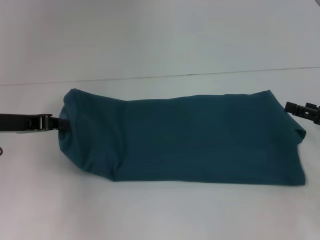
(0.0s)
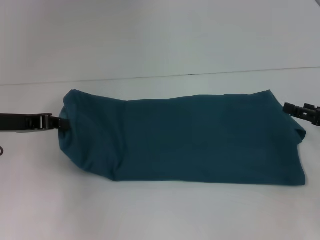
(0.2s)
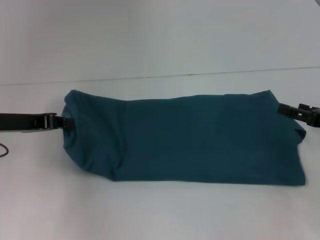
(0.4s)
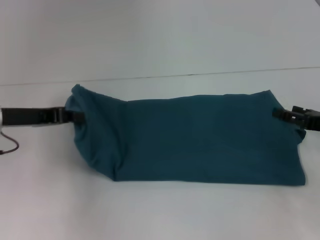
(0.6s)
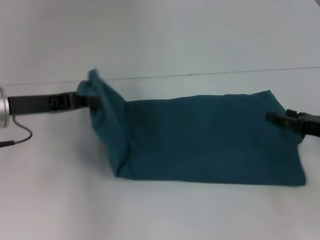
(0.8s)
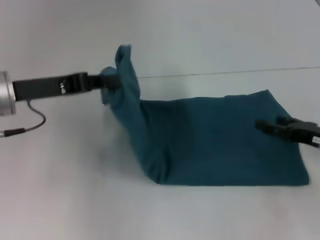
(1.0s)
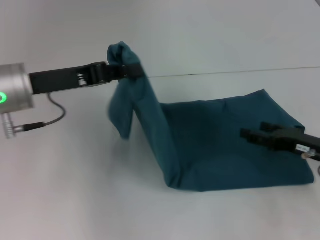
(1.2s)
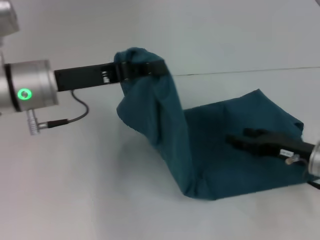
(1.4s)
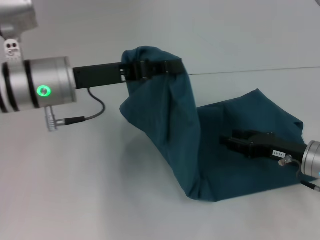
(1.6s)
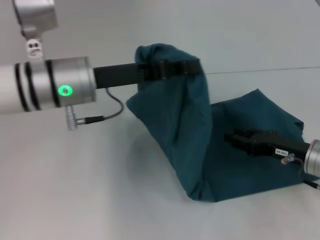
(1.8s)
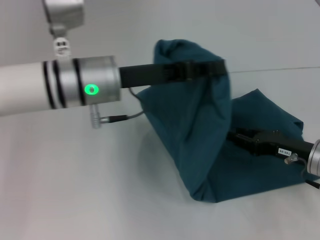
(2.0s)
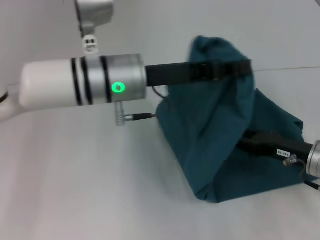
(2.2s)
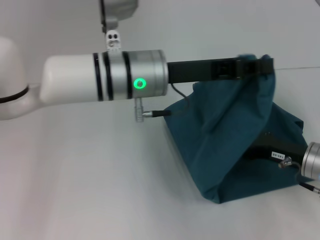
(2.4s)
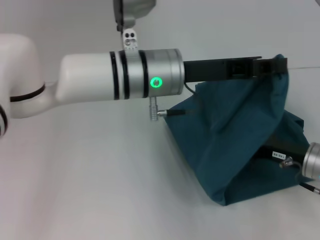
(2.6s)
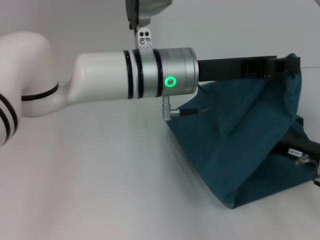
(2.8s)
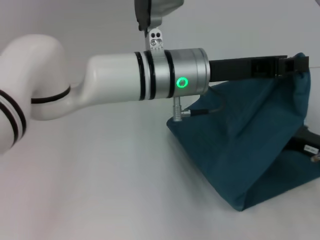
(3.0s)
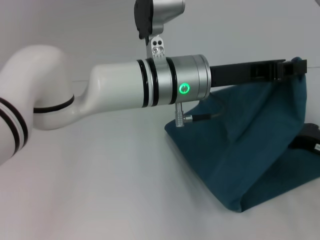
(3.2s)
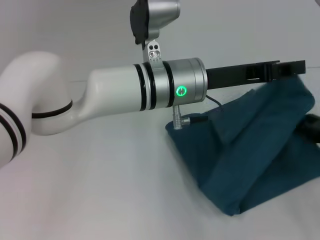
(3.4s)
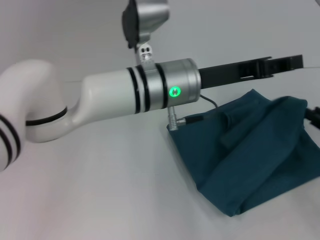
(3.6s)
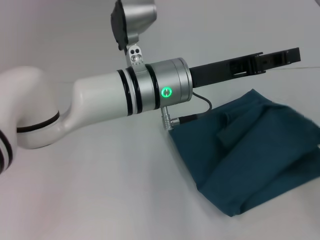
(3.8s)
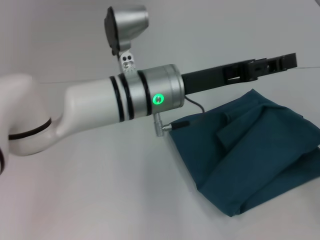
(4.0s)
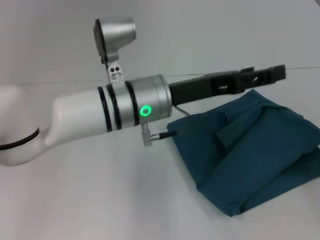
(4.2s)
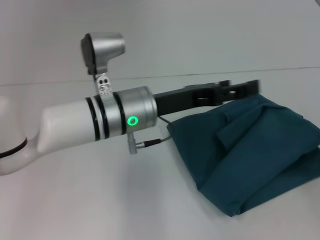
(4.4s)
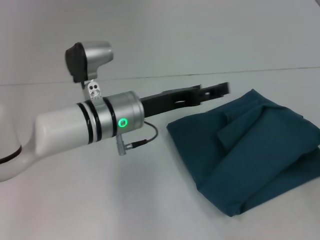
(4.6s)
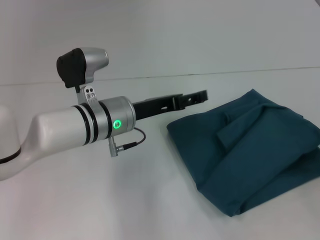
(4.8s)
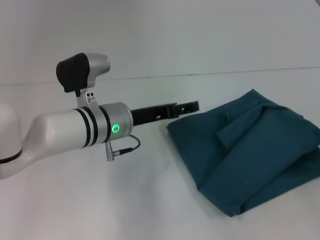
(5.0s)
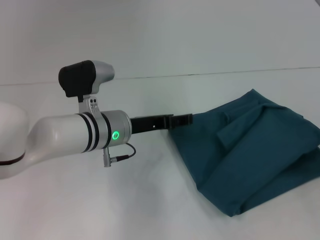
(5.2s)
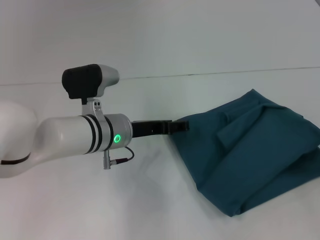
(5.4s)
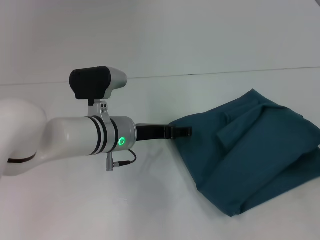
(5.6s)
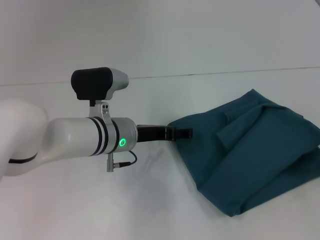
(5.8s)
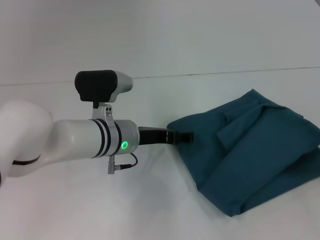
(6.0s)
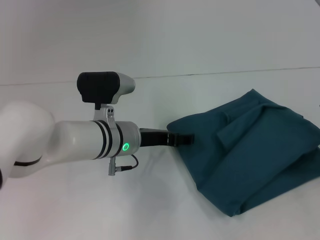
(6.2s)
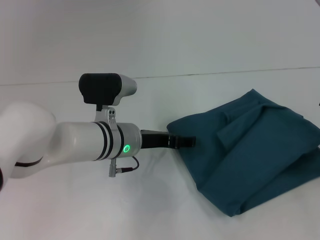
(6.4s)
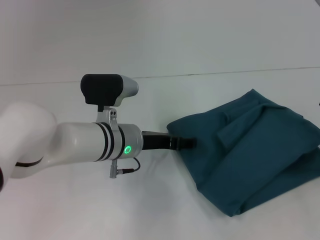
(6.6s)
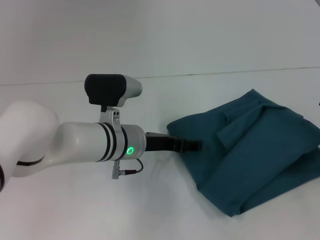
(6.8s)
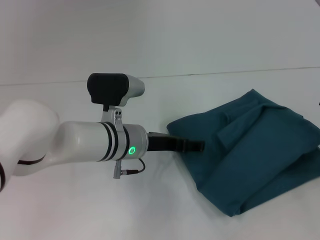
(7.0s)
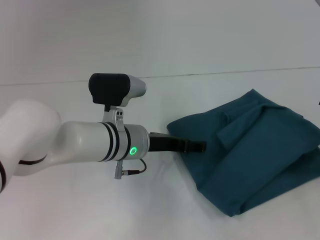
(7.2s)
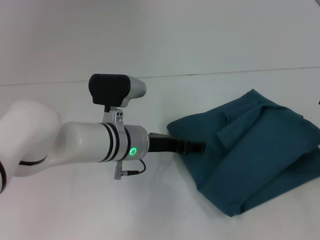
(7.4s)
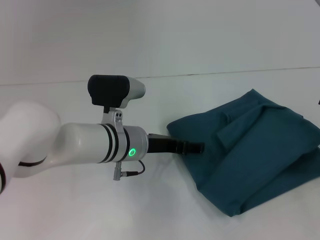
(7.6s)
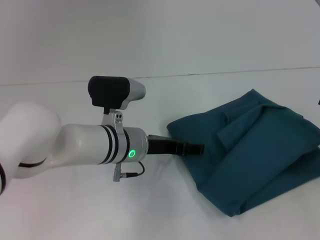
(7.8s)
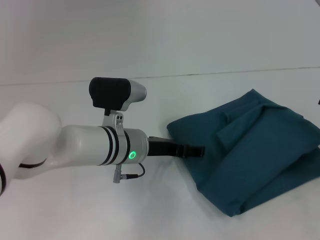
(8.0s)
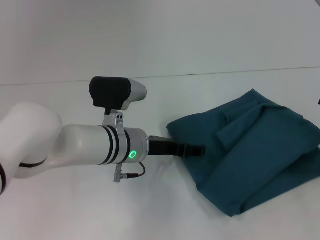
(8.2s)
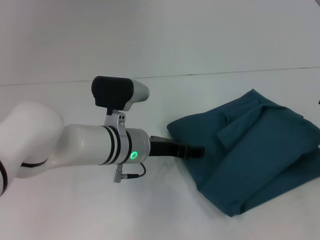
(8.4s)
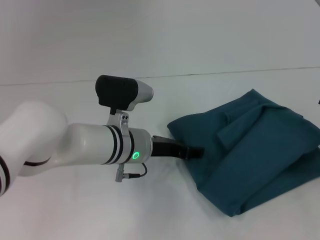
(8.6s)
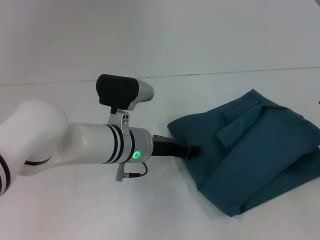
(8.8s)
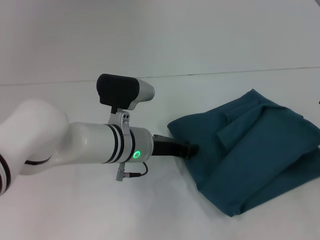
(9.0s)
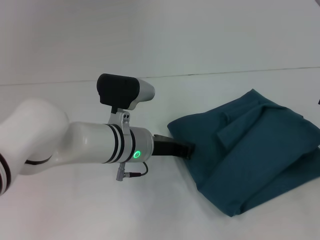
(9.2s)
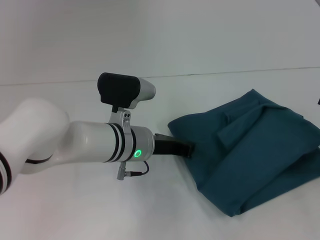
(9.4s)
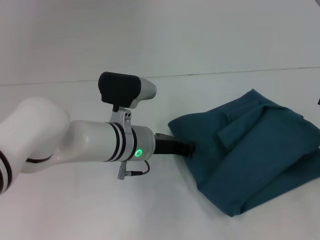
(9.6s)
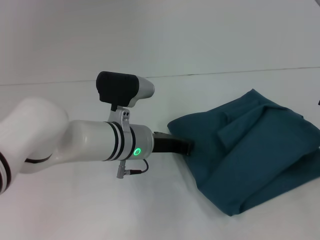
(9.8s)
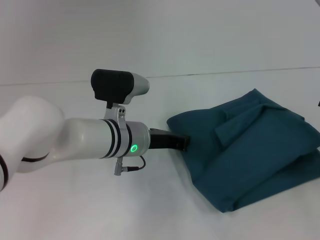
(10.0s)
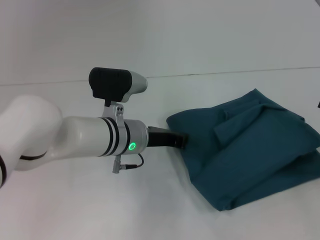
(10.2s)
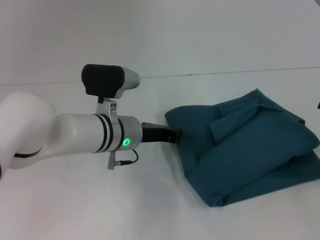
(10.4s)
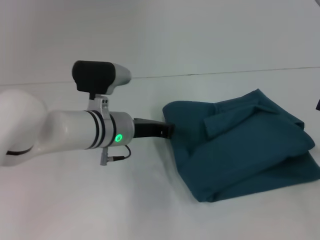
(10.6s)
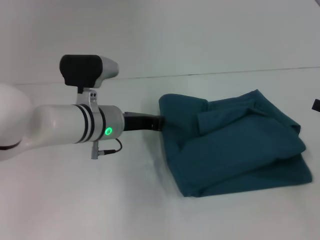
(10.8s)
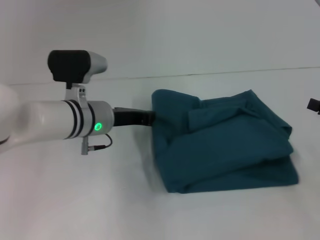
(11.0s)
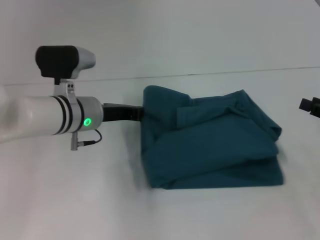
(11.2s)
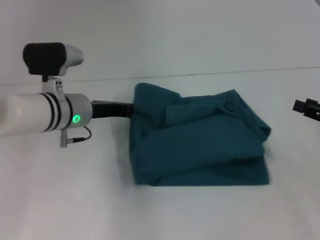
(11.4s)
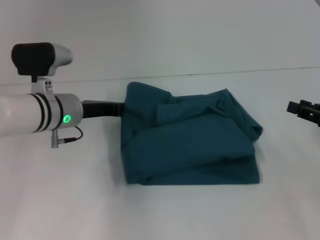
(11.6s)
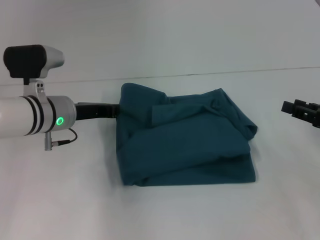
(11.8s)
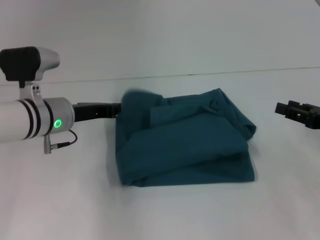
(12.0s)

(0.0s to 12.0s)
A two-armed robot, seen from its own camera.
Step, 0.0s - 4.6s: Fold the clothes to the left.
0.0s - 1.6s: The right gripper is displaced to the left by roughly 10 cm; the left gripper is displaced to the right by approximately 10 cm.
1.6s - 3.0s: The left gripper heads to the right, covering about 15 cm. The right gripper closes its fingers.
3.0s - 4.4s: The left gripper moves to the left and downward, some 10 cm, and opens up. Meanwhile the right gripper moves to the right, roughly 10 cm.
4.4s - 6.0s: The left gripper is displaced downward by some 5 cm.
6.0s - 7.6s: There are only small adjustments of the grippers.
7.6s - 9.0s: The left gripper closes.
9.0s - 10.4s: The grippers make only small movements.
10.4s - 12.0s: The right gripper ends up approximately 5 cm from where it was. The left gripper shifts some 10 cm to the left.

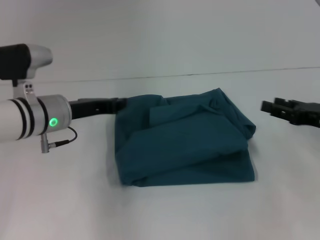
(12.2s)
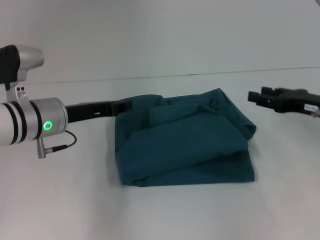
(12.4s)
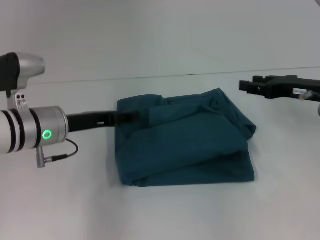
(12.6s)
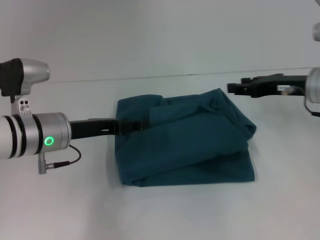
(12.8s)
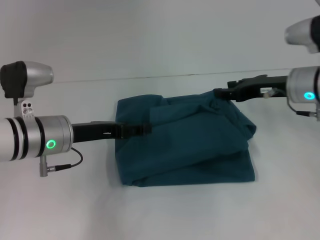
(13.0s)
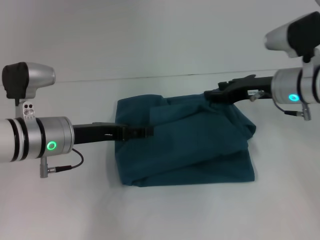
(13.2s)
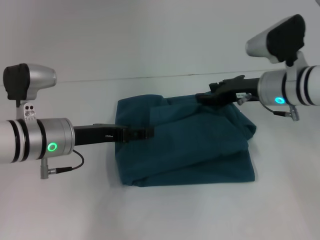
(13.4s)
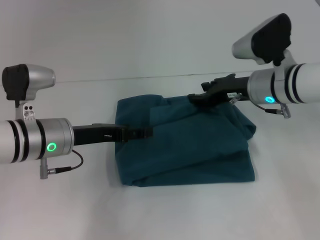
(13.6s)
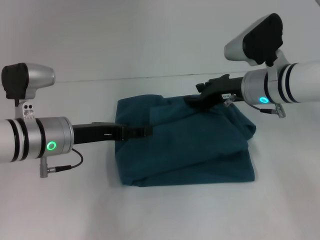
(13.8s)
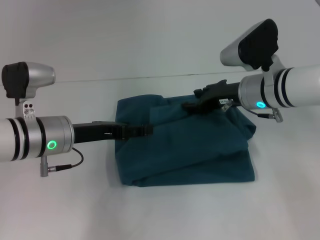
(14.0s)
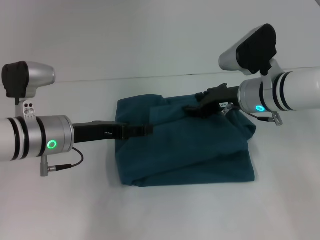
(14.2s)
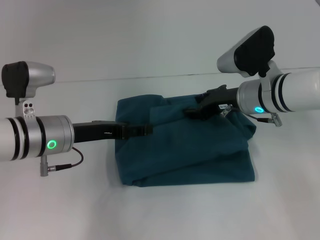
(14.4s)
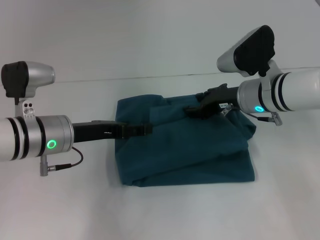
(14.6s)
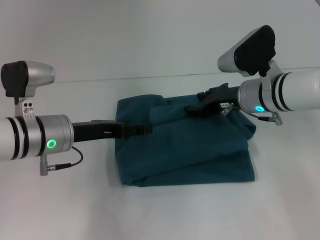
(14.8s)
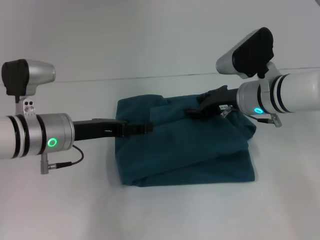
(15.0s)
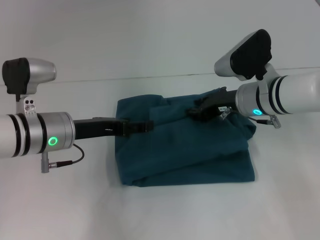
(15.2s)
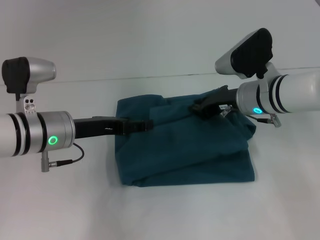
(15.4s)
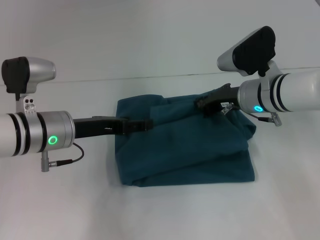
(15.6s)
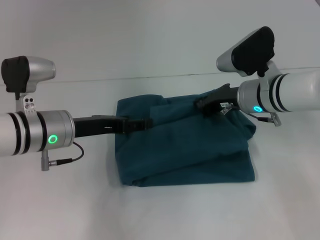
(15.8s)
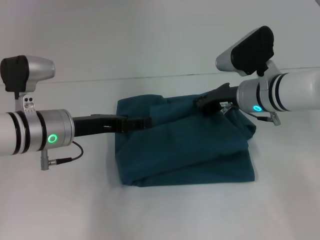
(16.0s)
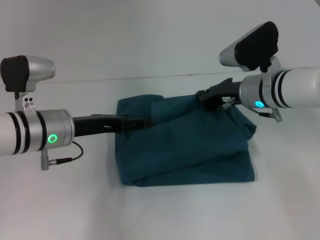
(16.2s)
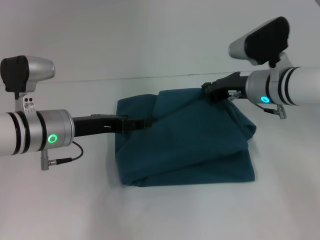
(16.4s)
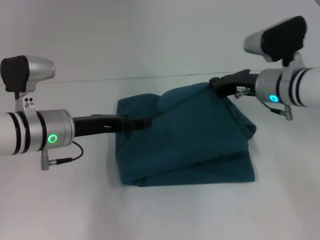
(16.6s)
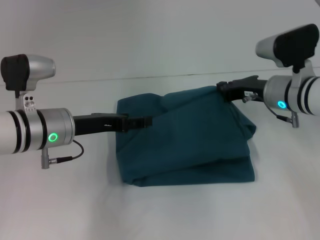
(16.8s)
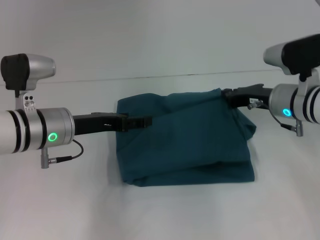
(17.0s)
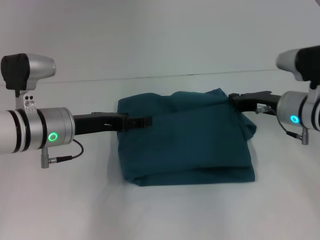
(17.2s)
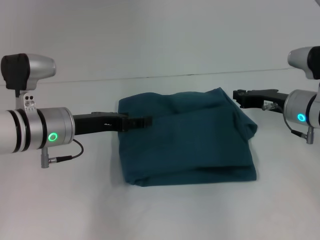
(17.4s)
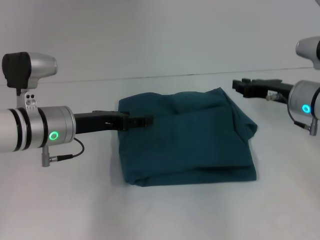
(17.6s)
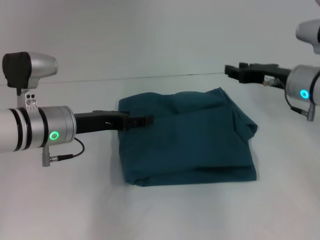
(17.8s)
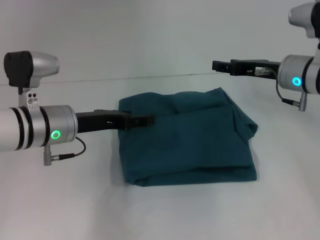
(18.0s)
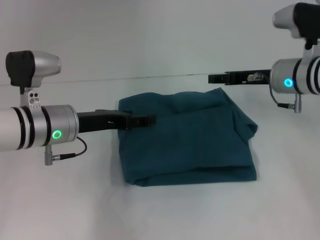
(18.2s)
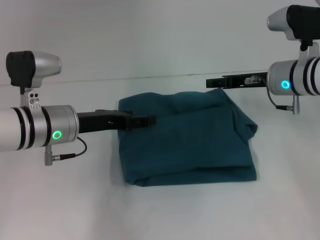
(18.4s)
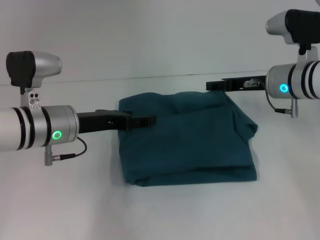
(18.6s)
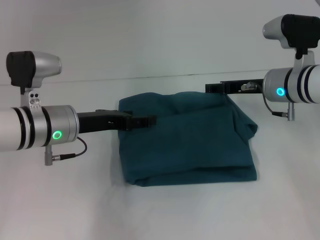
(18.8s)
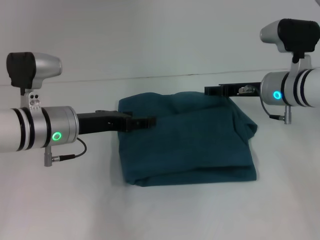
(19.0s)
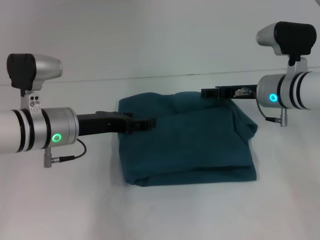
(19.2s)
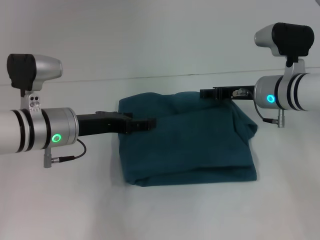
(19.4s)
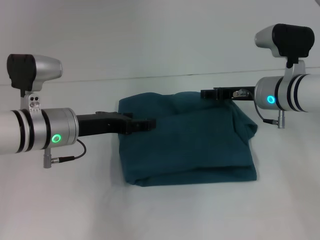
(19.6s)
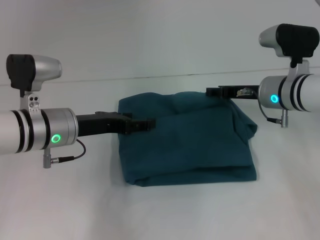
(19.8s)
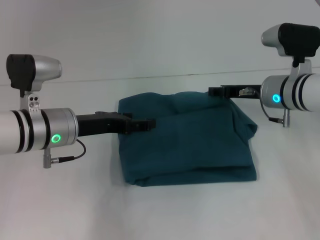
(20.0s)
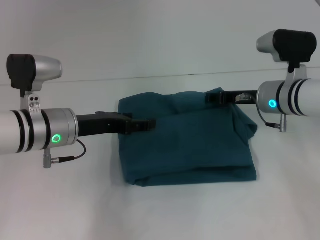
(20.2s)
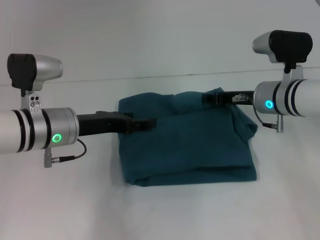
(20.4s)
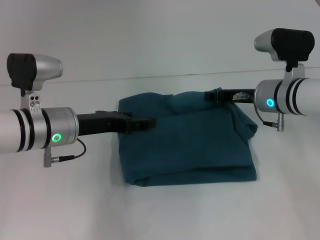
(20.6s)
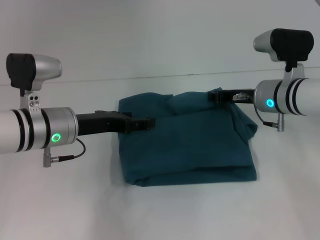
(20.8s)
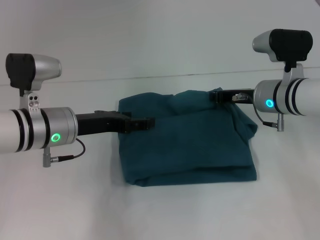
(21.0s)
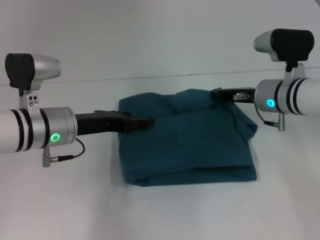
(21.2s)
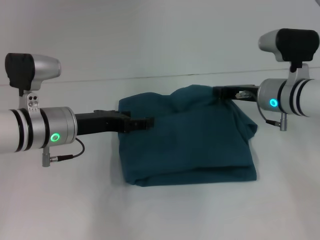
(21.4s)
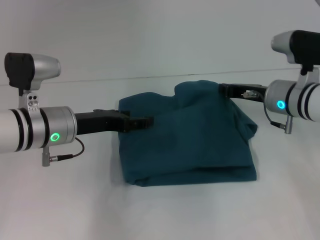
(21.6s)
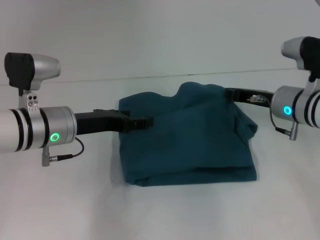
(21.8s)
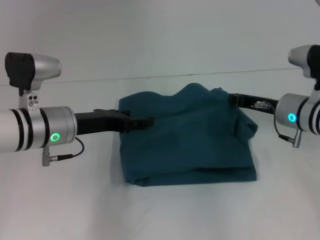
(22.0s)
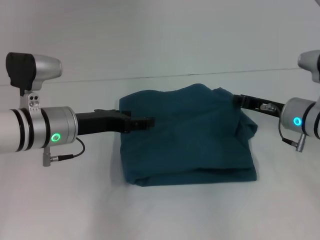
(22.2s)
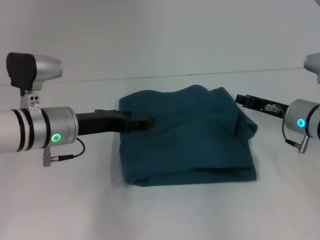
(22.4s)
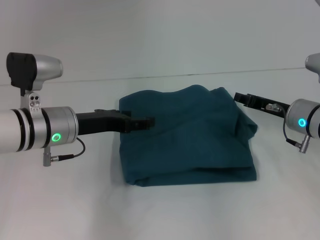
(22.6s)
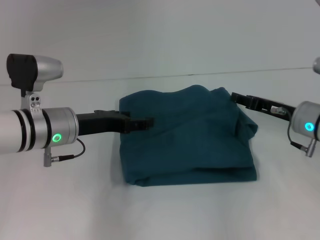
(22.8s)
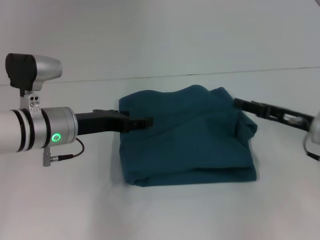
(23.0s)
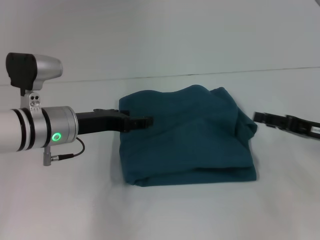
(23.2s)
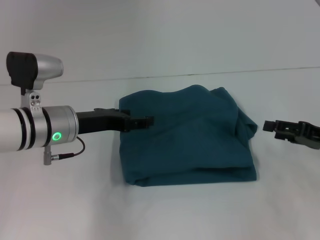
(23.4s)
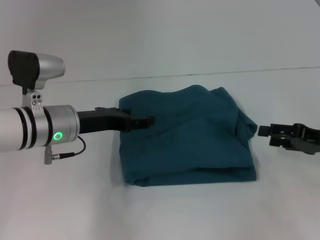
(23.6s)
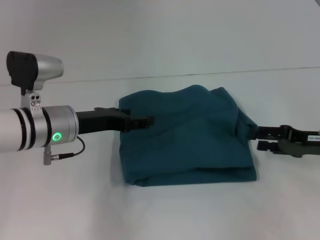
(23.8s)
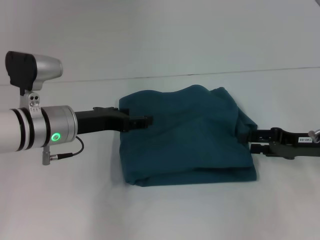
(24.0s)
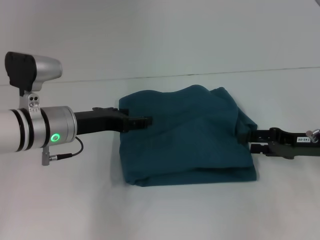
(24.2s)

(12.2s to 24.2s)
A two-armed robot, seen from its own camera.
12.2s - 13.8s: The right gripper moves to the left and forward, about 20 cm. Meanwhile the left gripper opens up.
13.8s - 15.2s: The grippers move only a little.
15.2s - 16.6s: The right gripper closes its fingers.
16.6s - 18.2s: The right gripper opens its fingers.
18.2s - 19.8s: The grippers move only a little.
19.8s - 21.2s: The right gripper closes up.
21.2s - 22.6s: The right gripper ends up roughly 5 cm from where it was.
22.6s - 24.2s: The right gripper is displaced backward and to the right by some 5 cm, and opens.
